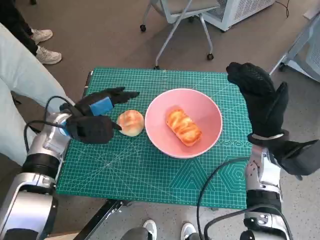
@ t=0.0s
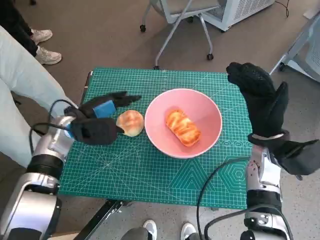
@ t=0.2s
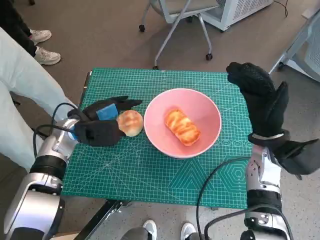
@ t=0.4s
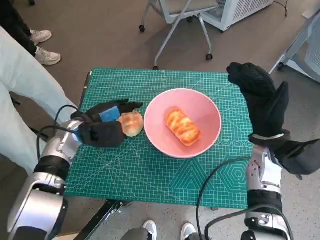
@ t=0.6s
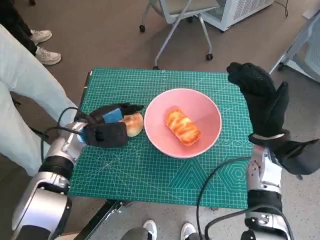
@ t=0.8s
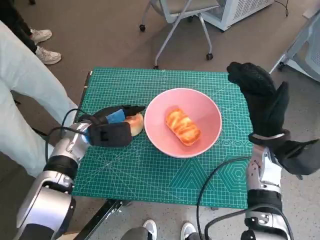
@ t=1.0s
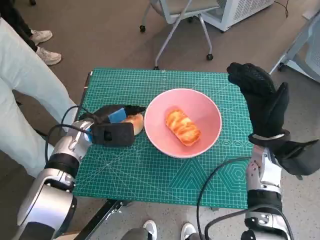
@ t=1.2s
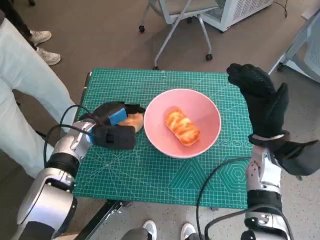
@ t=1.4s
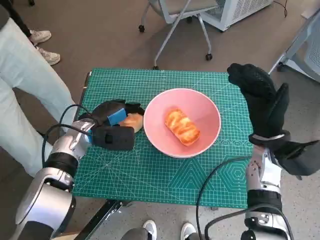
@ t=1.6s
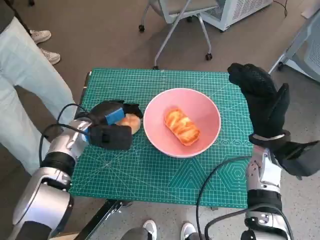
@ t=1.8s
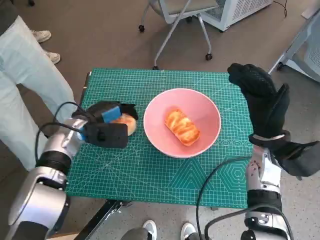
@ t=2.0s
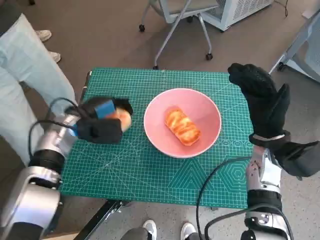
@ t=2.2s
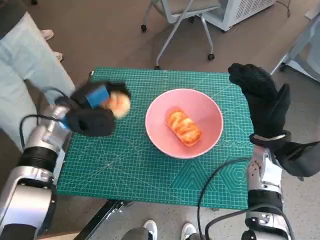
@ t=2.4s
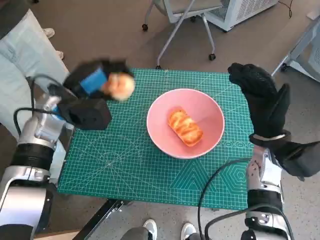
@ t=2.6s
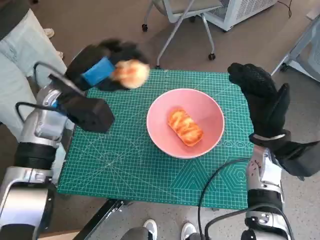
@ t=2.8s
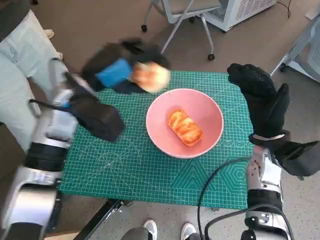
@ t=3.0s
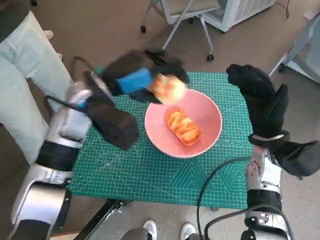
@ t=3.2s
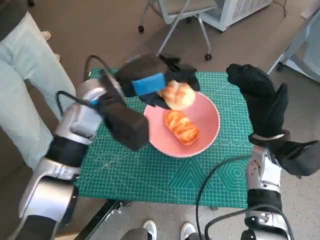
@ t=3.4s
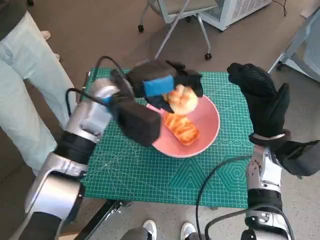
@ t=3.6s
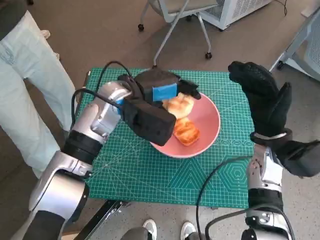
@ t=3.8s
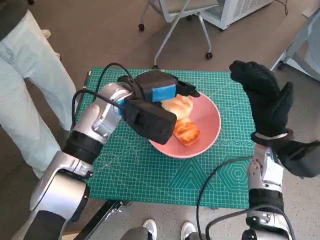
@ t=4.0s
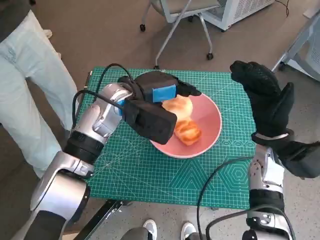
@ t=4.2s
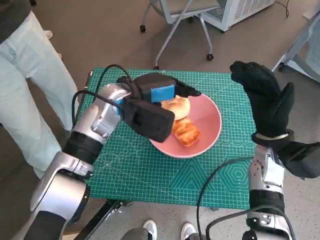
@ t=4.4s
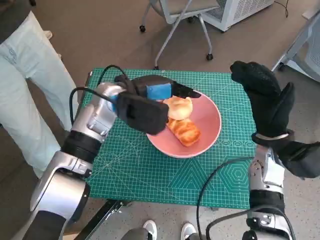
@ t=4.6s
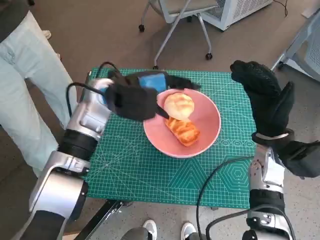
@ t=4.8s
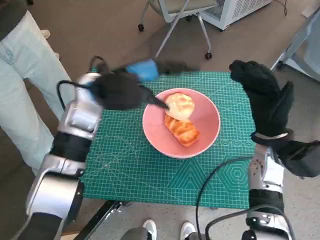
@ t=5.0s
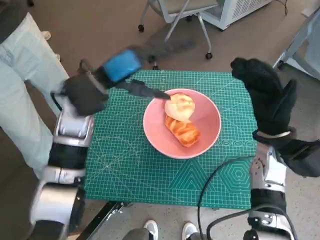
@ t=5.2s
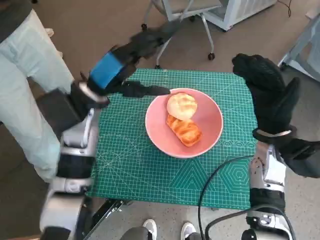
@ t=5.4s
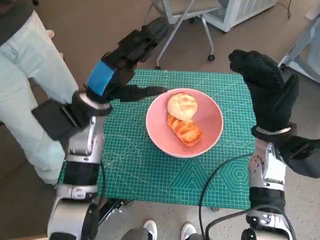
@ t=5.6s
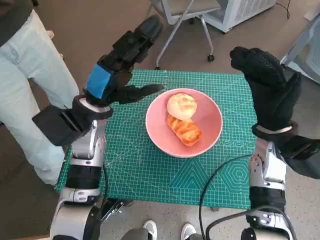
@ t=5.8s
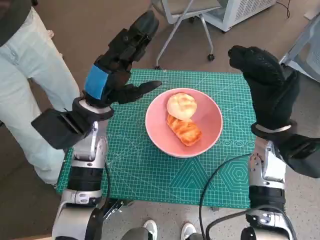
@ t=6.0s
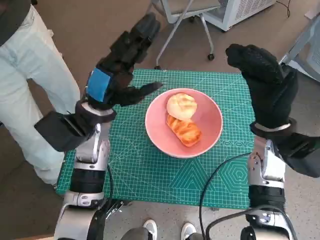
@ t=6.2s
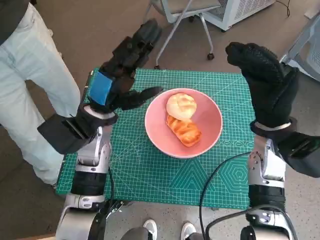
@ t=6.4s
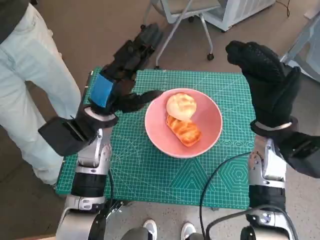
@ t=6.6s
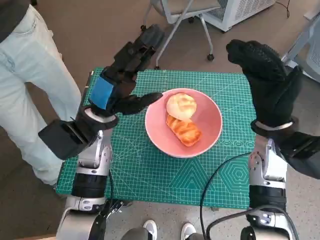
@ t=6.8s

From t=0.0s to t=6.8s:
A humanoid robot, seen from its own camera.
Task of the whole recording: Push the bowl into the center of the table and put the bread into the bowl.
Step, from t=1.6s to t=5.0s: Place the round bread in pink bowl with left hand.
From t=0.0s to t=1.4s: The left hand shifts by approximately 5 cm.
From t=1.4s to t=2.8s: The left hand travels upward by approximately 10 cm.
From t=2.8s to t=4.0s: The left hand shifts roughly 10 cm to the right.
From t=4.0s to t=5.4s: The left hand moves to the left, about 5 cm.
From t=5.4s to t=6.8s: The left hand changes place by about 5 cm.
